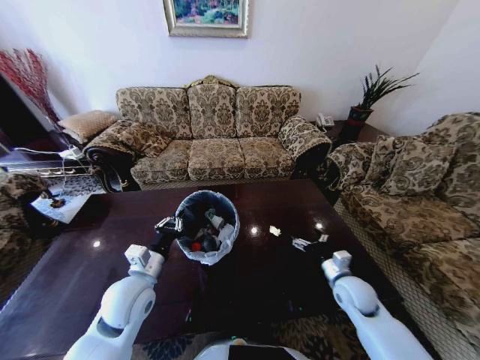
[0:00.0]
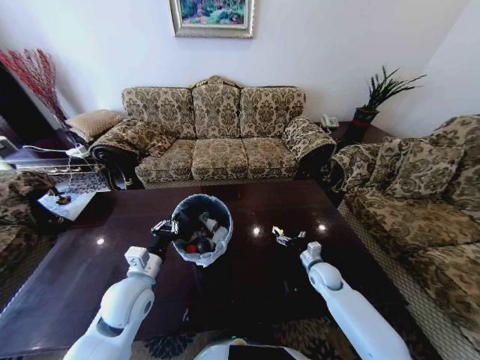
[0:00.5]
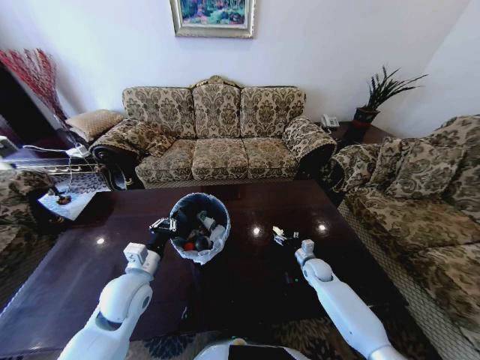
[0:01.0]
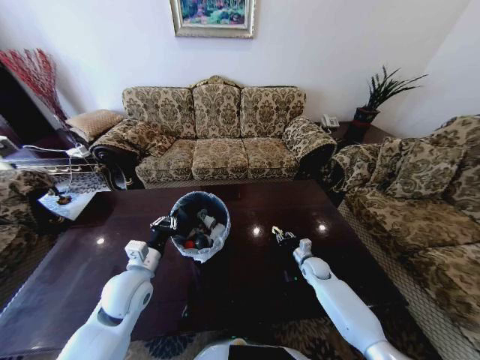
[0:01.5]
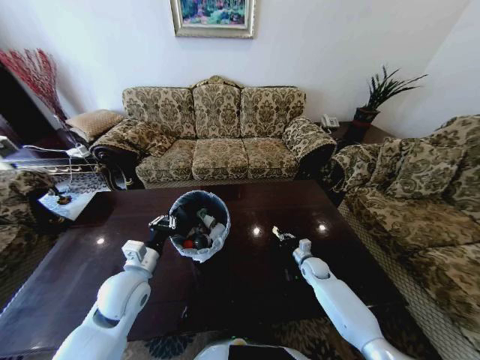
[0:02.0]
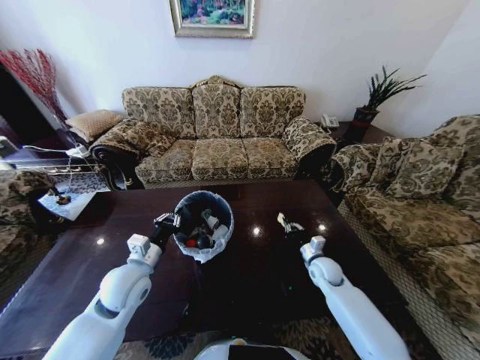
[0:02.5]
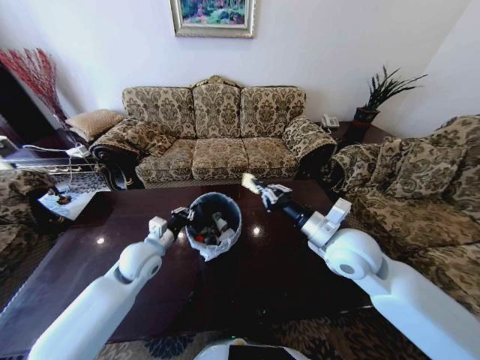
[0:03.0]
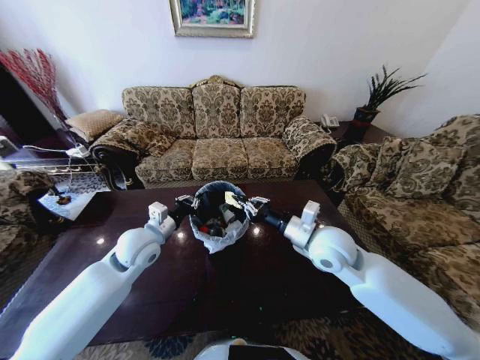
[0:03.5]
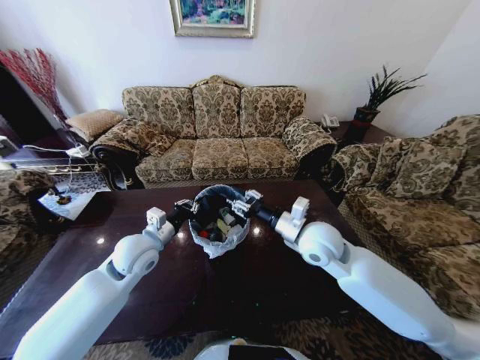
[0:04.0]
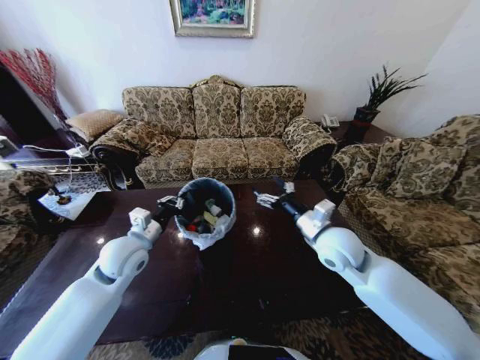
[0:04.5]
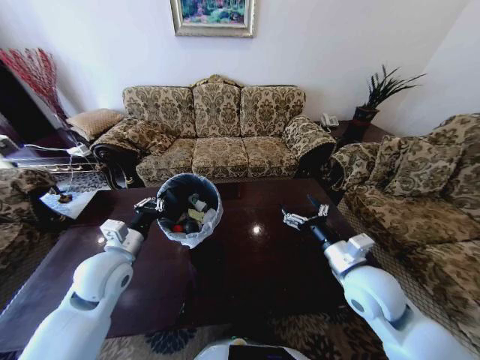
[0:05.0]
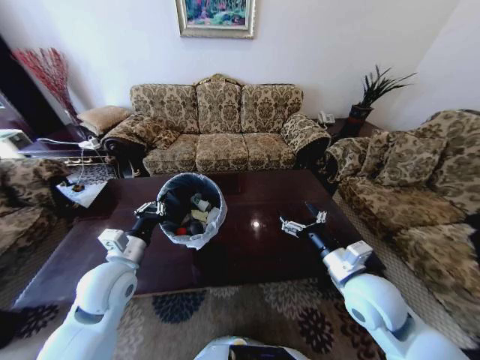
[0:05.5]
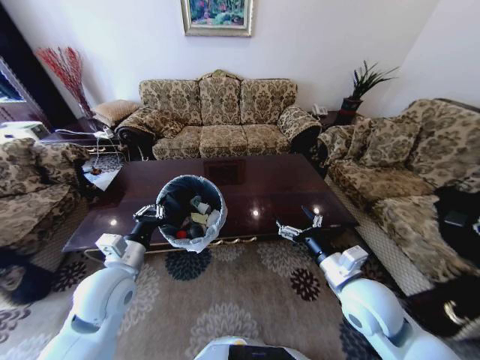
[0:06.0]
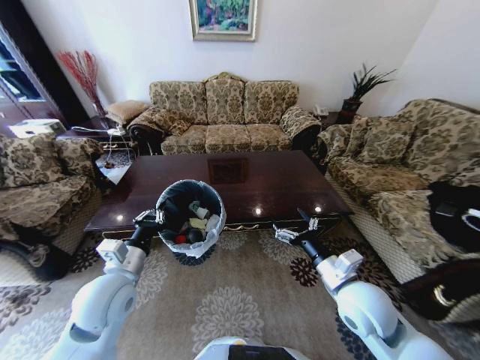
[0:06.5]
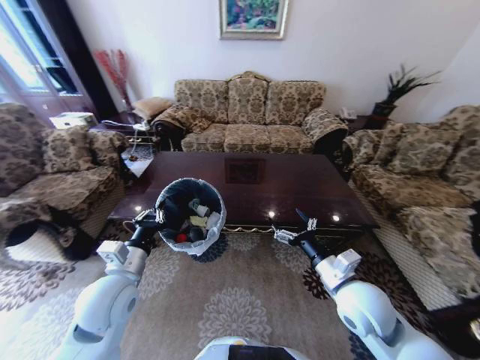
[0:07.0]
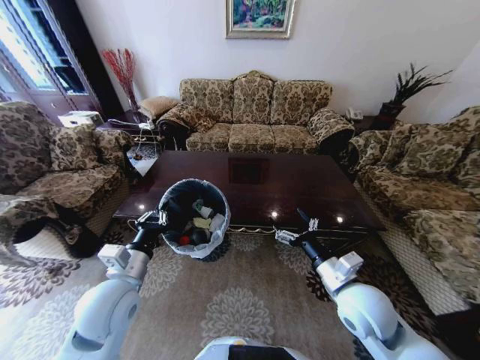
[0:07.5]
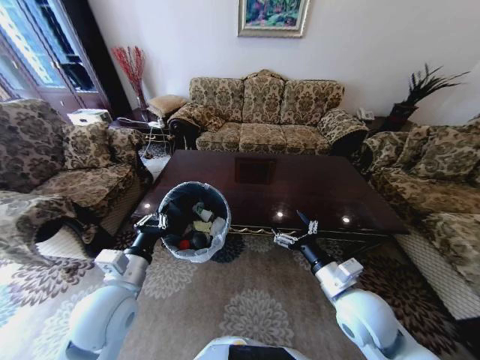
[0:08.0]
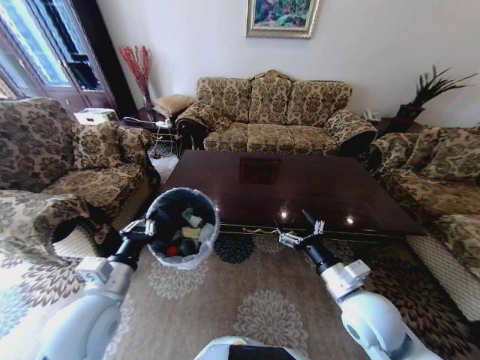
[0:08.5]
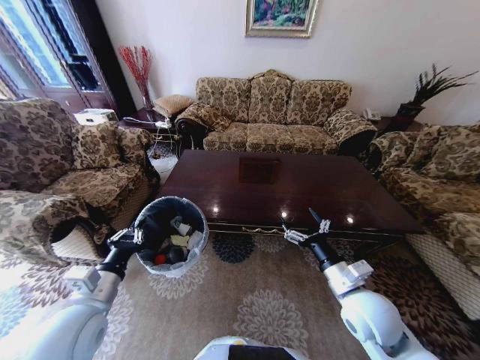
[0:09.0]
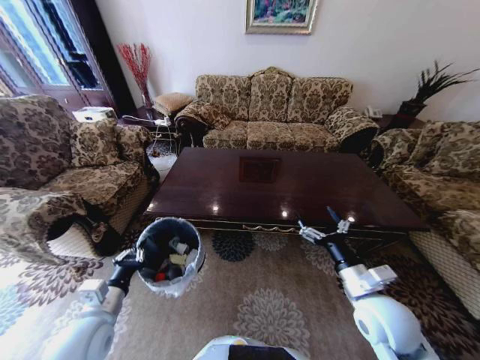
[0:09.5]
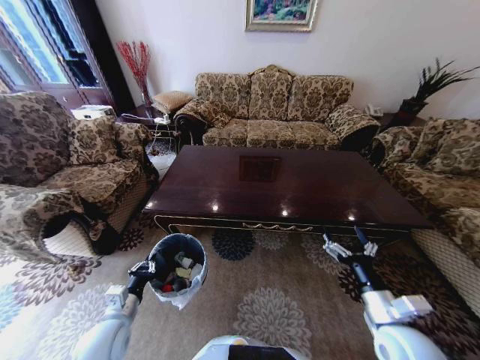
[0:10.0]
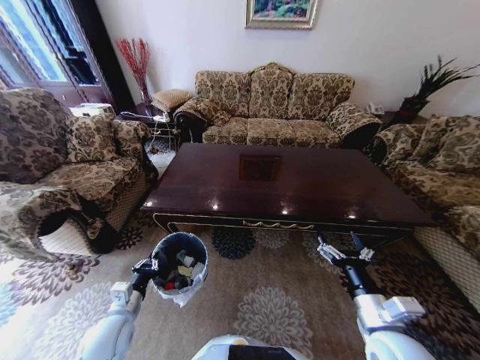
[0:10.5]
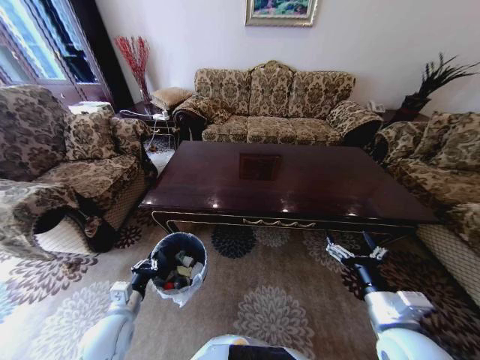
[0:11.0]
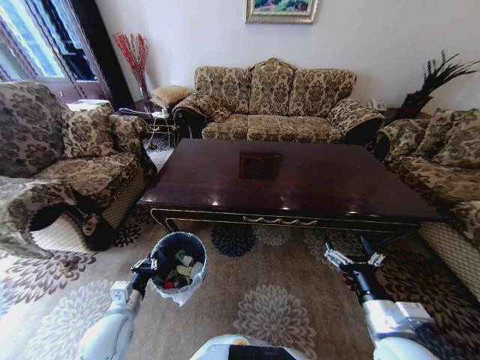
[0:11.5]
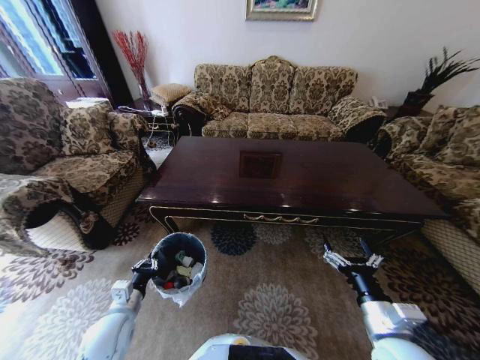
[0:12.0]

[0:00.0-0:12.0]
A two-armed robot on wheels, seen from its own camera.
Task of the whole recording: Move to the front of the table and place the trash on the table into the trash bin.
0:00.0 to 0:02.0: The right gripper travels downward and forward by approximately 15 cm, and closes up.
0:02.0 to 0:04.0: The right gripper shifts roughly 30 cm upward, and opens its fingers, while the left gripper travels forward by some 5 cm.
0:04.0 to 0:06.0: The left gripper goes some 10 cm backward, while the right gripper goes some 15 cm backward and to the right, and opens.
0:08.0 to 0:10.0: The left gripper travels downward and to the left by some 15 cm; the right gripper travels to the right by roughly 10 cm.

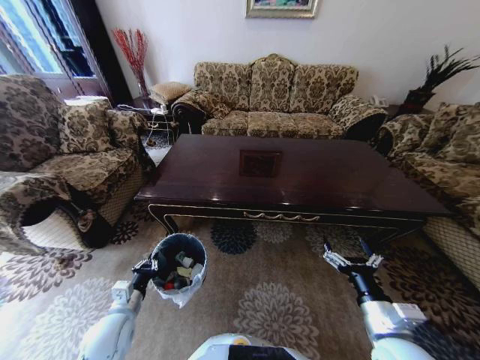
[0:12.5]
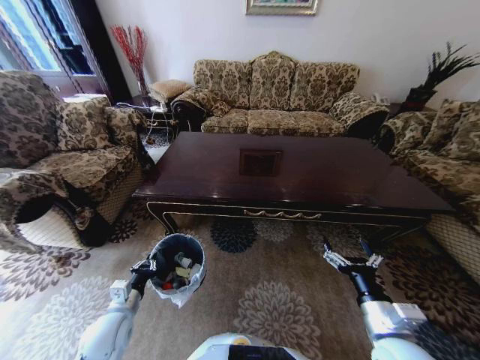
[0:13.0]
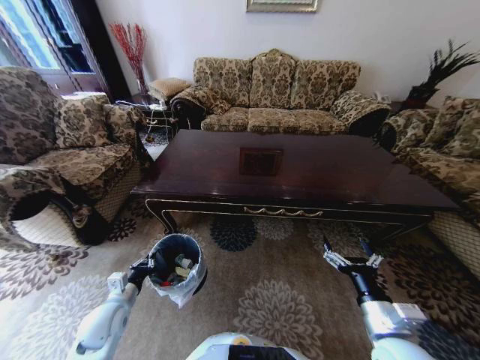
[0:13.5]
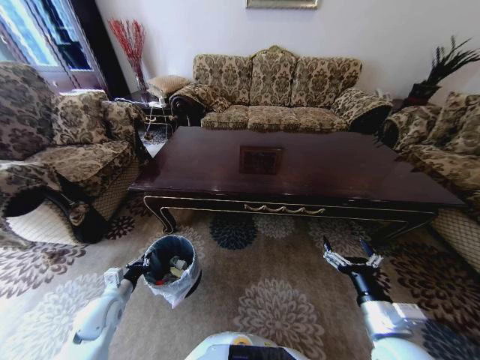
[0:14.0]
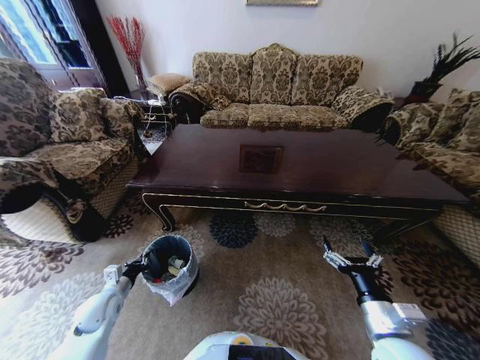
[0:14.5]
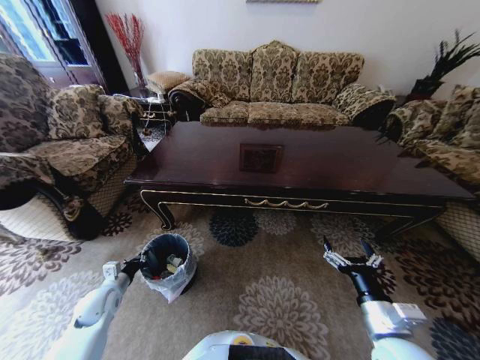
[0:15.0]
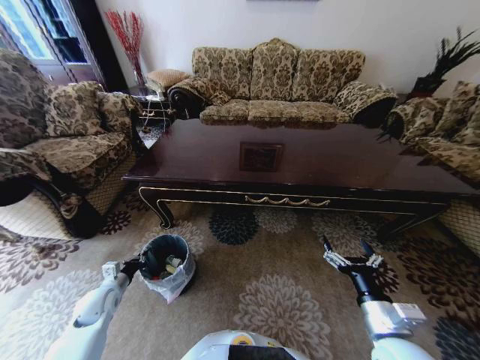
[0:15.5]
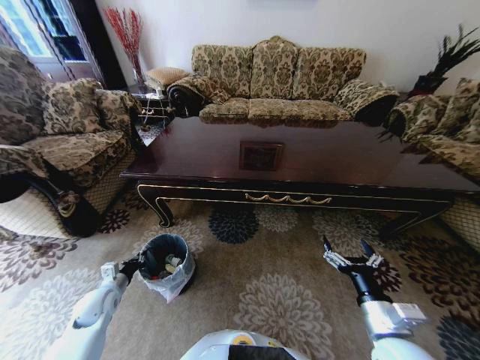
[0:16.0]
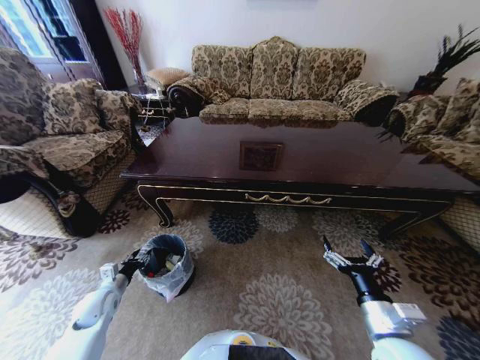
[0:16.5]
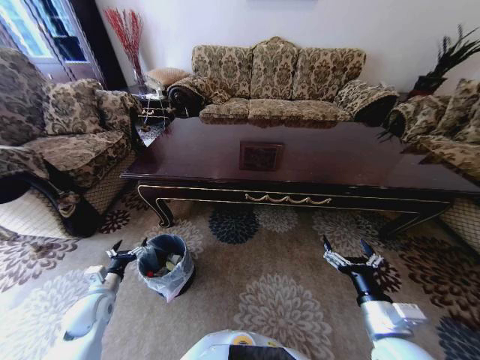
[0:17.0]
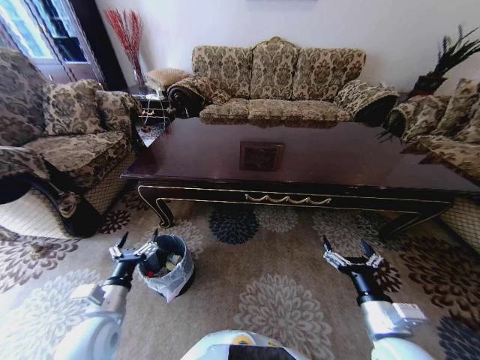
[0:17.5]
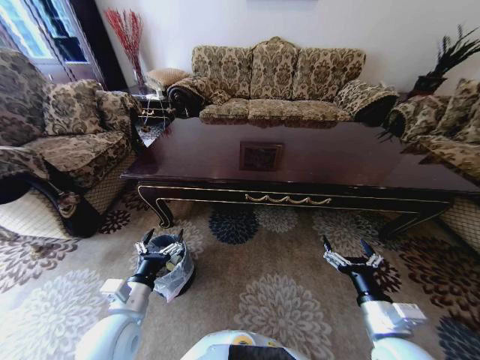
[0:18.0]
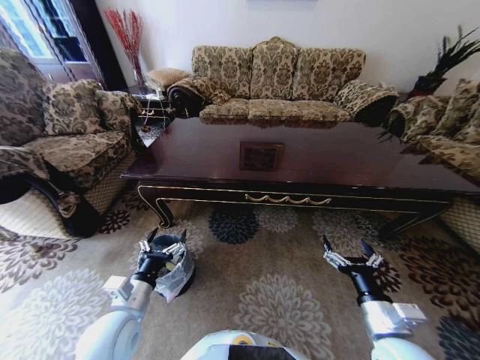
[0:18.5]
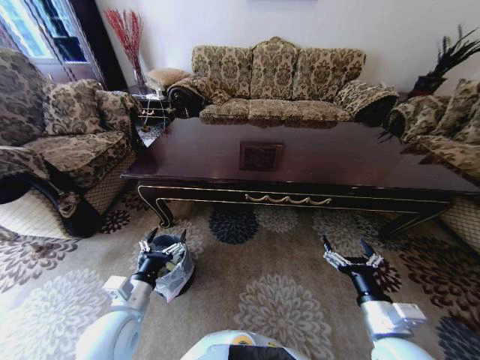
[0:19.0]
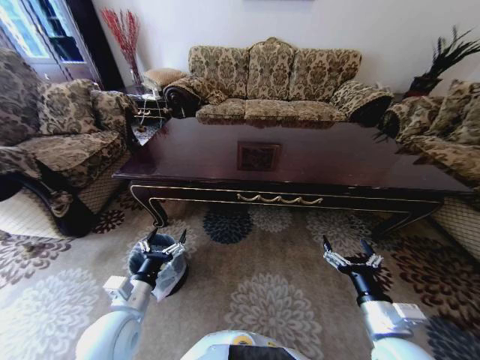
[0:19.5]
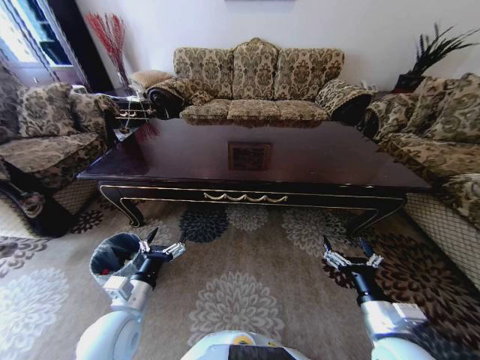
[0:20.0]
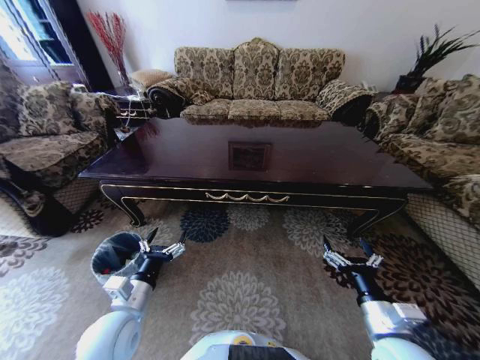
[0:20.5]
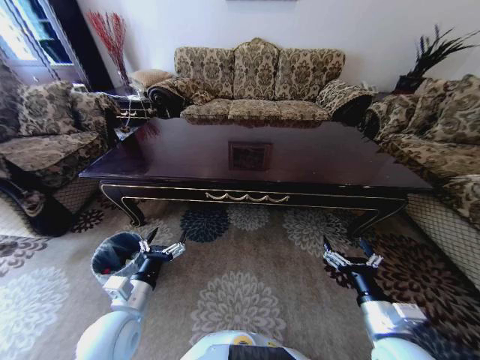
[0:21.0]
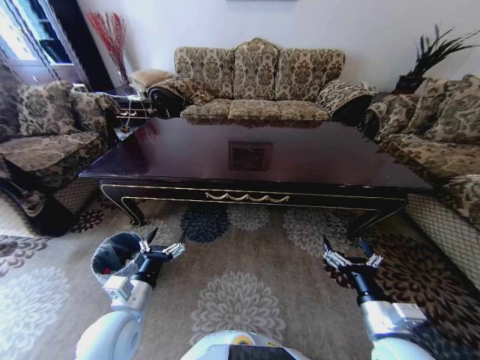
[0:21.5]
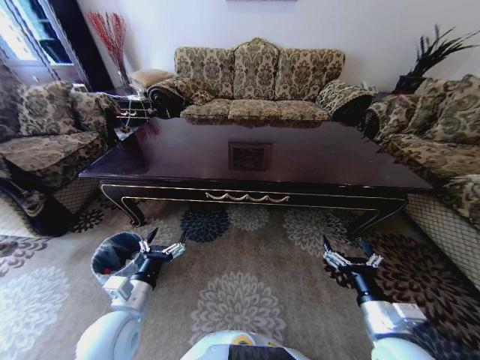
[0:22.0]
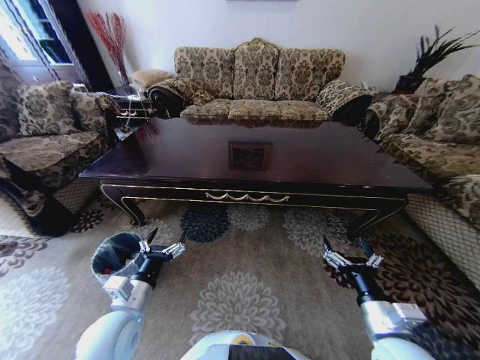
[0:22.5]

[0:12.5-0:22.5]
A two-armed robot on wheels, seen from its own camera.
Task of the whole recording: Move to the front of the table and place the trash on the table into the trash bin.
0:12.5 to 0:14.5: The left gripper shifts about 10 cm to the left and forward.
0:14.5 to 0:16.5: The left gripper opens its fingers.
0:16.5 to 0:18.5: The left gripper shifts some 20 cm to the right, upward and backward, and opens up.
0:20.5 to 0:22.5: Both grippers stay about where they are.
